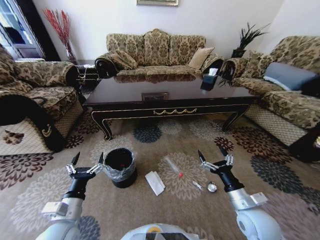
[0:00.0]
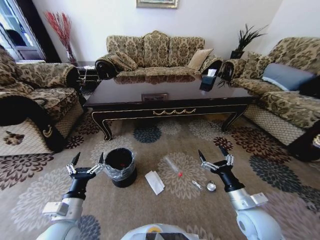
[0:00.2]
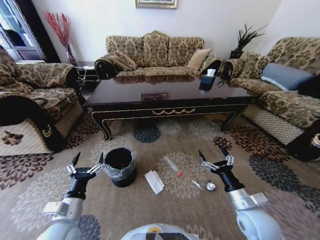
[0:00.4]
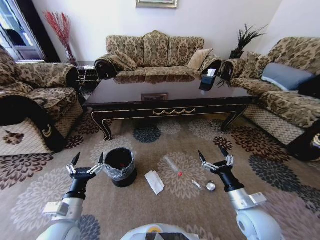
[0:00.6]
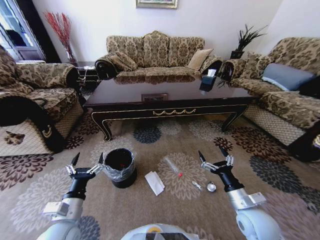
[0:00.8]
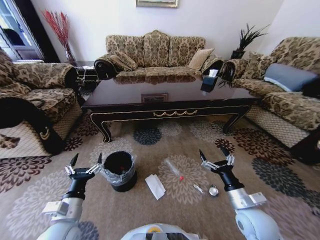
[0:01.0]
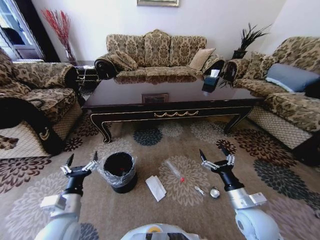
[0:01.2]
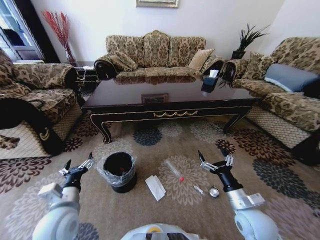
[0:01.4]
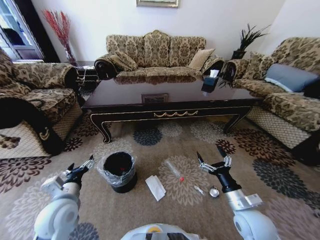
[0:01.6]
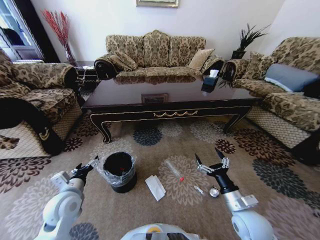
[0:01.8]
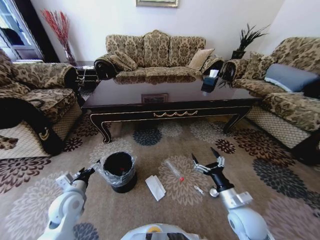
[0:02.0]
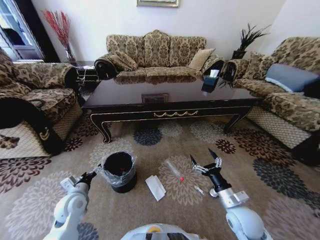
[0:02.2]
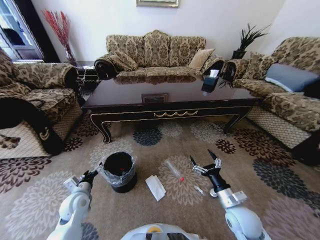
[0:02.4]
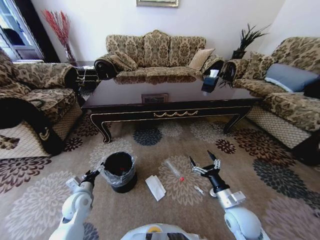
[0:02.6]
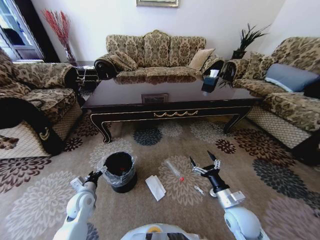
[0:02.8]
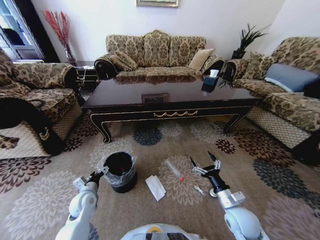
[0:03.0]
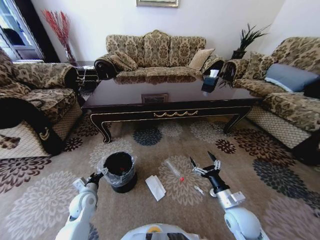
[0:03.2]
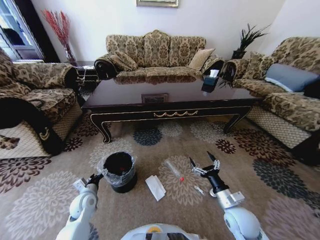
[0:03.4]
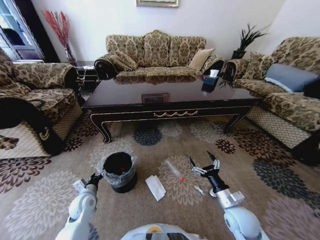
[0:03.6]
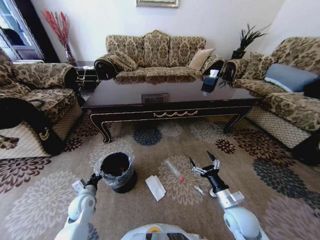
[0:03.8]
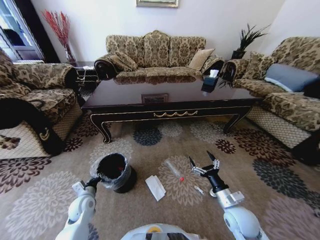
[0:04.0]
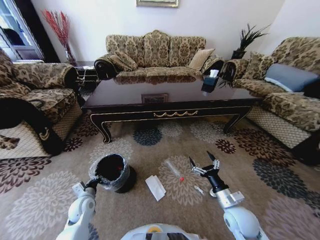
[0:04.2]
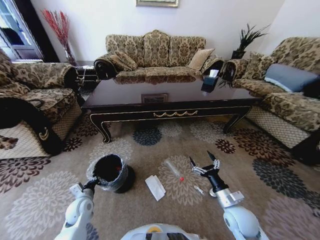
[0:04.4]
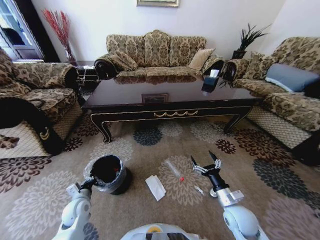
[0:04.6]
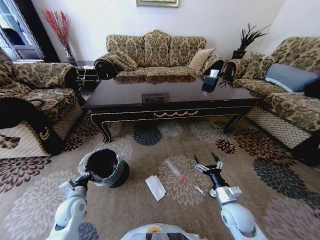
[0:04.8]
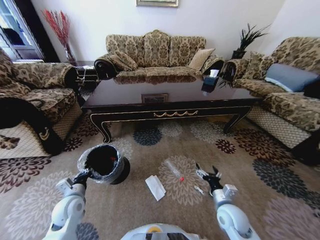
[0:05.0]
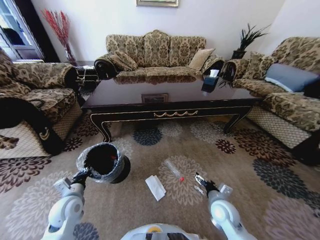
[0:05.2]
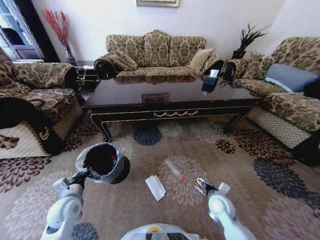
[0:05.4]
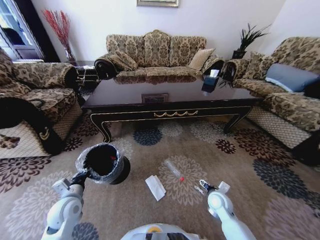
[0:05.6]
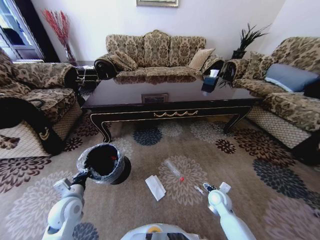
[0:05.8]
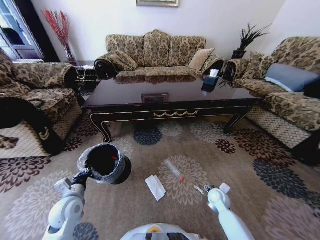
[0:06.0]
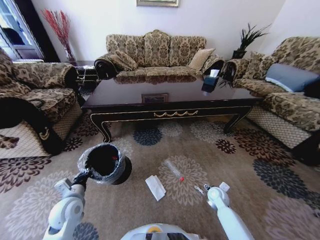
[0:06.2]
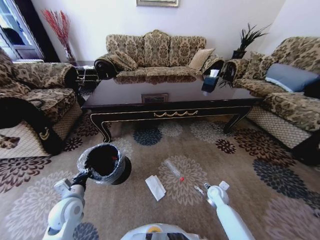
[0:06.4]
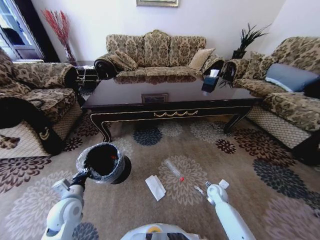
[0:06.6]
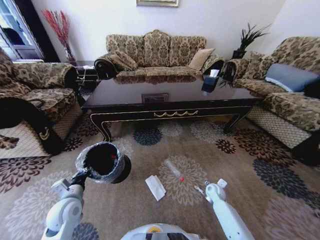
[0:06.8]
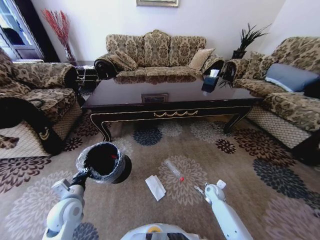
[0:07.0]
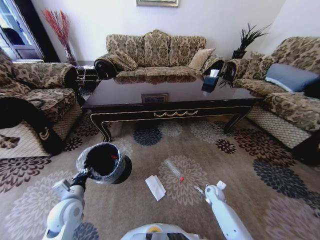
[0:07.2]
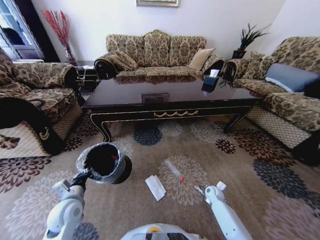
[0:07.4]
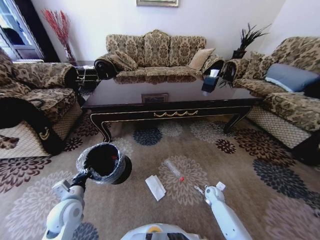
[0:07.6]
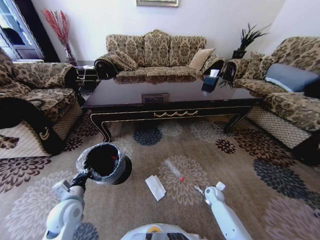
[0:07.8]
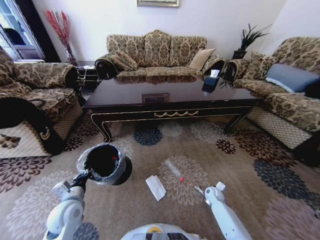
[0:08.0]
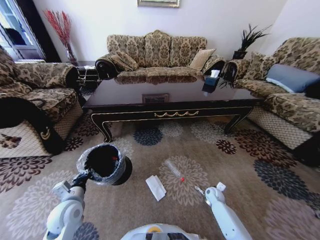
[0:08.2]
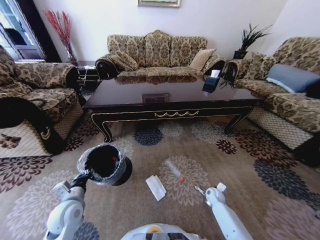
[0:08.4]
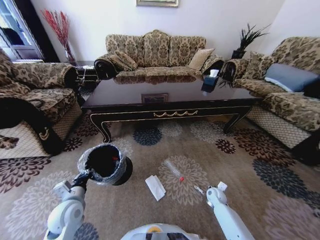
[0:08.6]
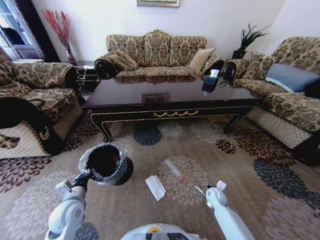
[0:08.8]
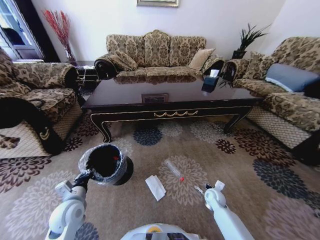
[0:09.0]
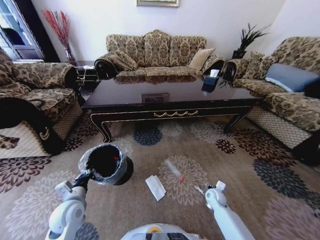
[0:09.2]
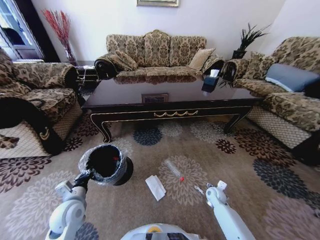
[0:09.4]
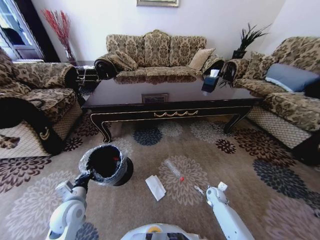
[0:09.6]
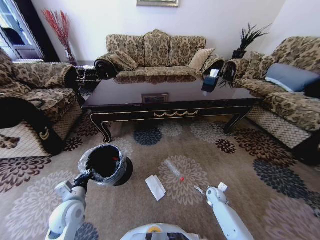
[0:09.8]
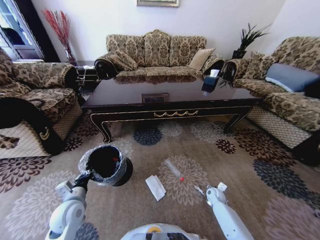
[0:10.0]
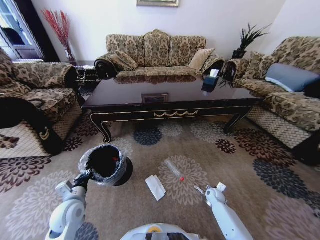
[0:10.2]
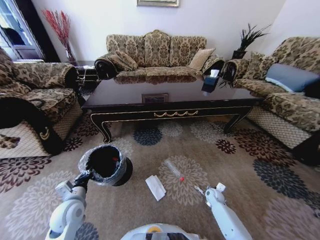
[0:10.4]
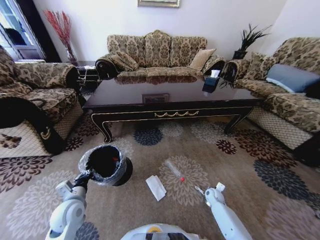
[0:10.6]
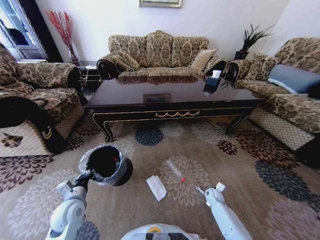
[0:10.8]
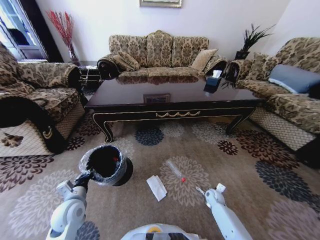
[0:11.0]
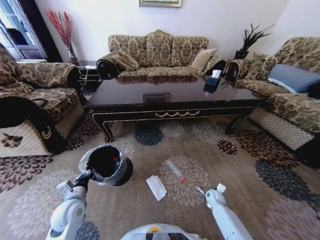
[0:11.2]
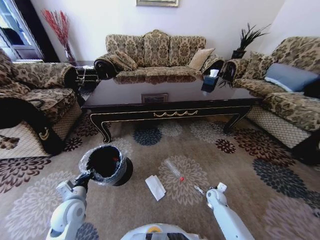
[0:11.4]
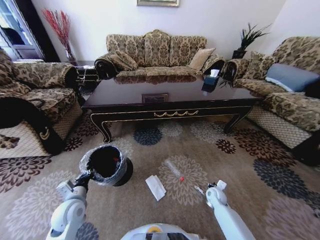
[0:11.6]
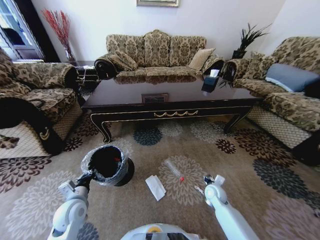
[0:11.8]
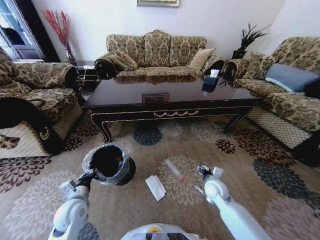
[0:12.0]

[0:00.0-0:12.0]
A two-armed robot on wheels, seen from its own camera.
Task of the whole recording: Move to the front of the table and pick up the trash from the floor, then place it into the trash bin.
0:00.0 to 0:01.6: The left gripper is displaced forward by some 5 cm.
0:01.6 to 0:03.0: The left gripper goes about 15 cm downward and forward.
0:03.0 to 0:04.4: The left gripper closes.
0:04.4 to 0:06.0: The left gripper shifts some 10 cm upward, while the right gripper moves downward and forward, approximately 15 cm.
0:06.0 to 0:07.6: The right gripper goes some 10 cm downward.
0:07.6 to 0:09.0: The right gripper shifts by roughly 5 cm.
0:10.4 to 0:12.0: The right gripper shifts some 20 cm upward and to the left, and closes up.

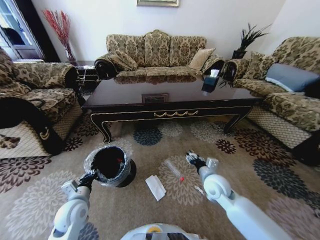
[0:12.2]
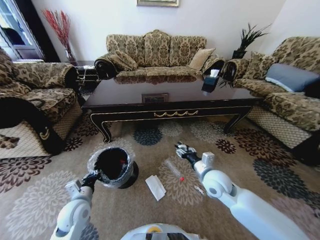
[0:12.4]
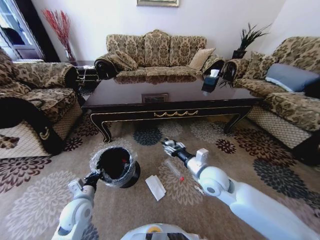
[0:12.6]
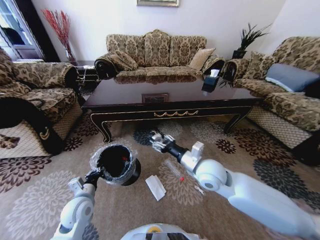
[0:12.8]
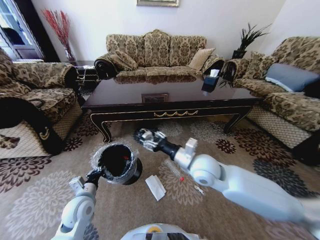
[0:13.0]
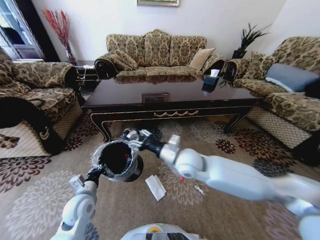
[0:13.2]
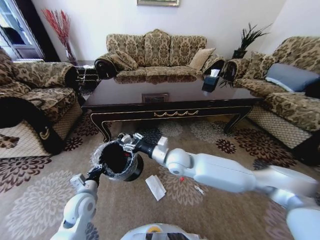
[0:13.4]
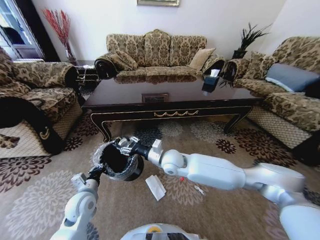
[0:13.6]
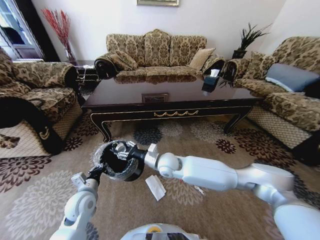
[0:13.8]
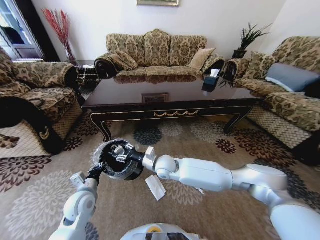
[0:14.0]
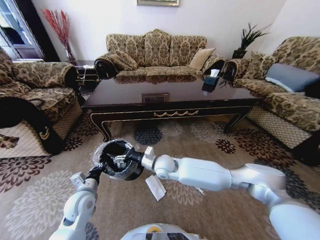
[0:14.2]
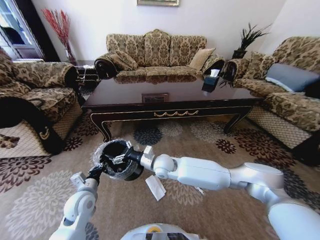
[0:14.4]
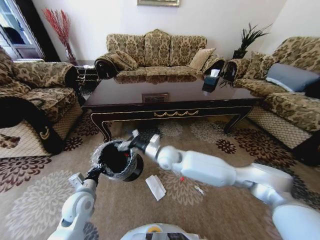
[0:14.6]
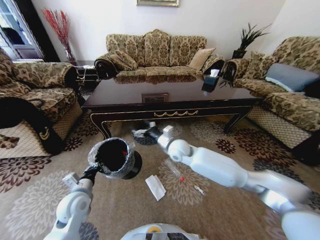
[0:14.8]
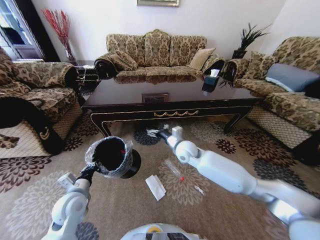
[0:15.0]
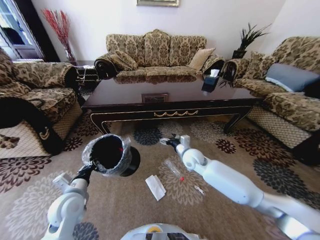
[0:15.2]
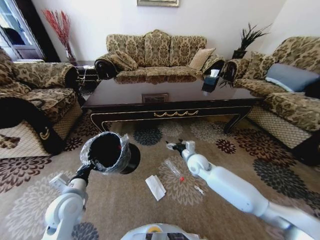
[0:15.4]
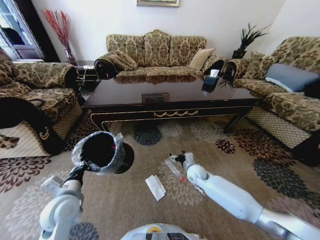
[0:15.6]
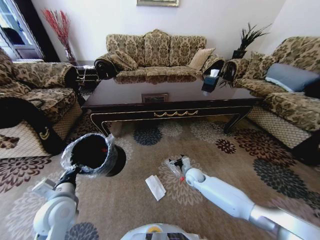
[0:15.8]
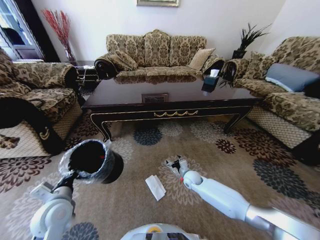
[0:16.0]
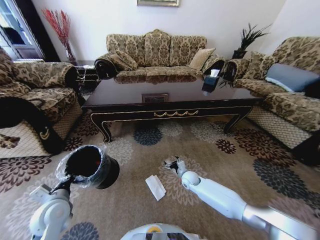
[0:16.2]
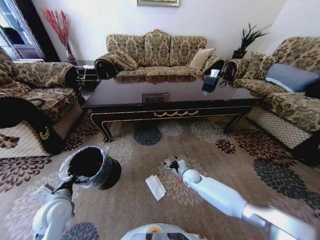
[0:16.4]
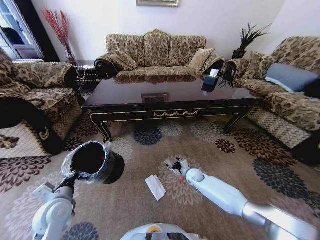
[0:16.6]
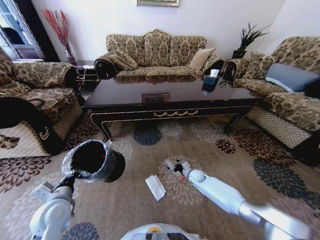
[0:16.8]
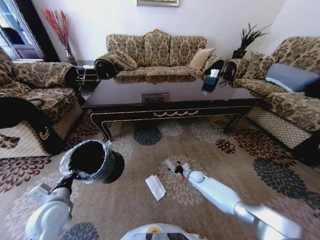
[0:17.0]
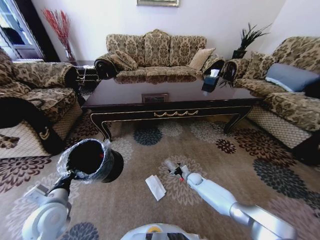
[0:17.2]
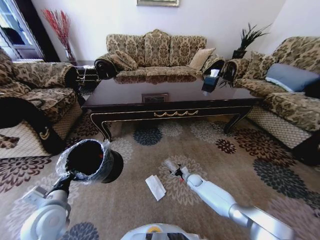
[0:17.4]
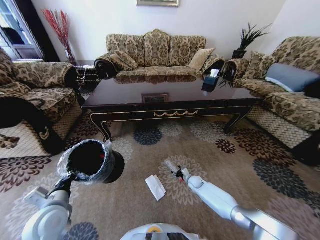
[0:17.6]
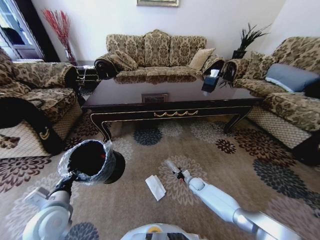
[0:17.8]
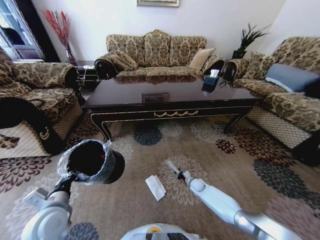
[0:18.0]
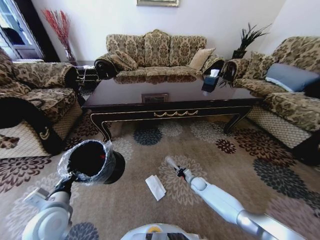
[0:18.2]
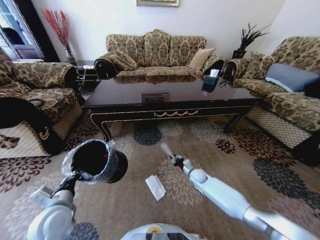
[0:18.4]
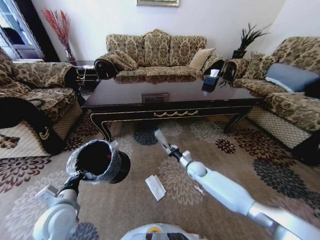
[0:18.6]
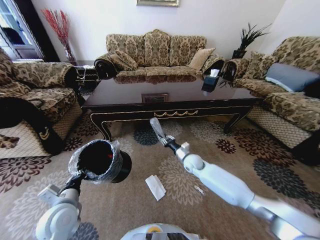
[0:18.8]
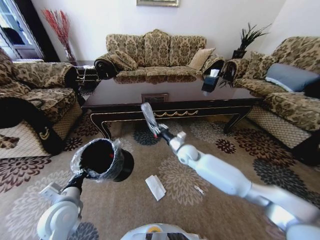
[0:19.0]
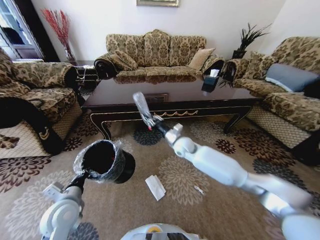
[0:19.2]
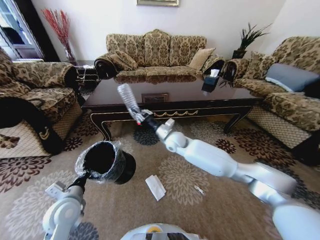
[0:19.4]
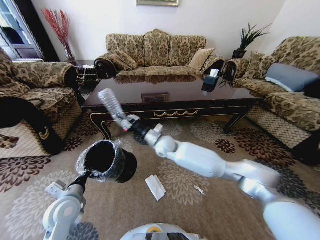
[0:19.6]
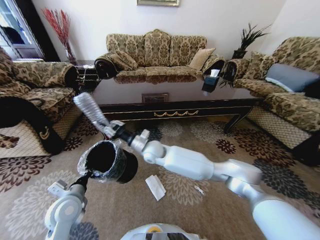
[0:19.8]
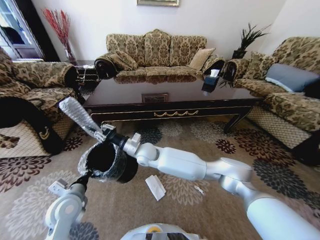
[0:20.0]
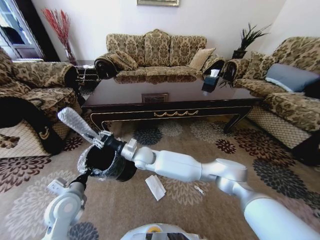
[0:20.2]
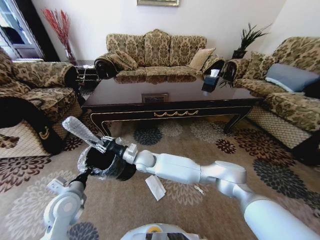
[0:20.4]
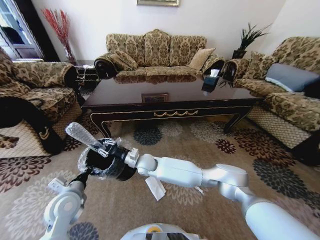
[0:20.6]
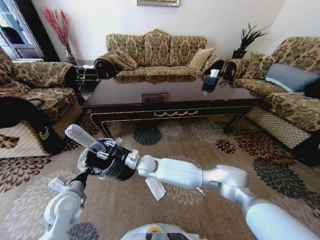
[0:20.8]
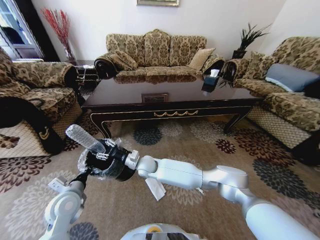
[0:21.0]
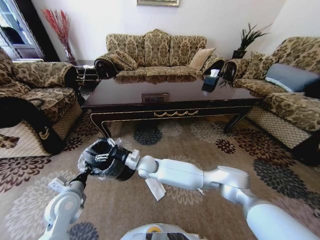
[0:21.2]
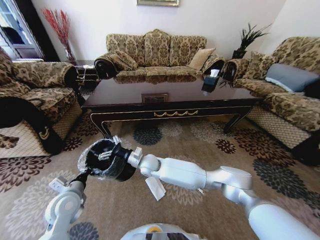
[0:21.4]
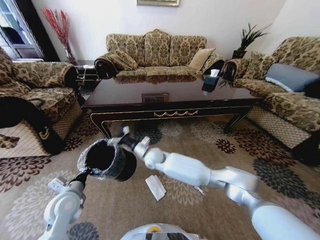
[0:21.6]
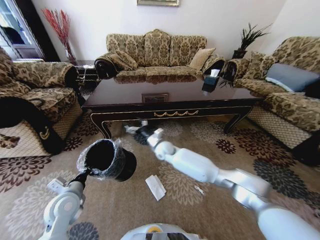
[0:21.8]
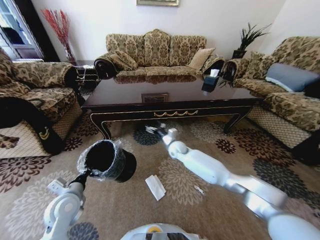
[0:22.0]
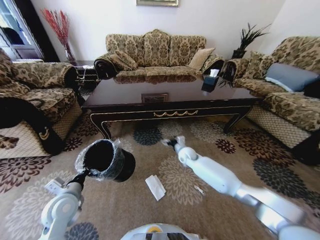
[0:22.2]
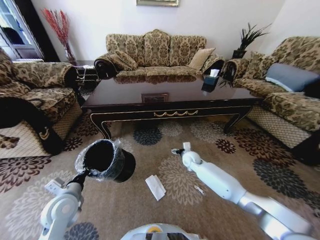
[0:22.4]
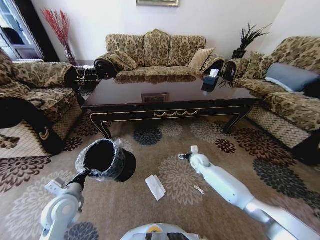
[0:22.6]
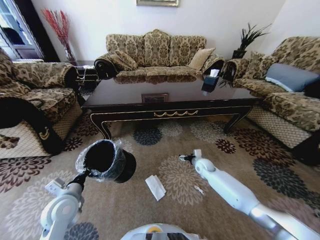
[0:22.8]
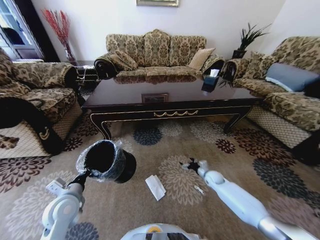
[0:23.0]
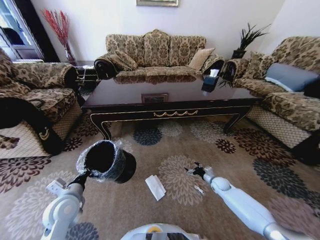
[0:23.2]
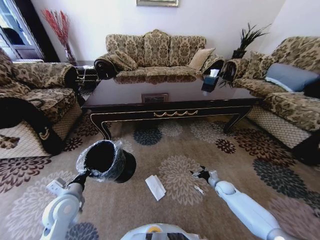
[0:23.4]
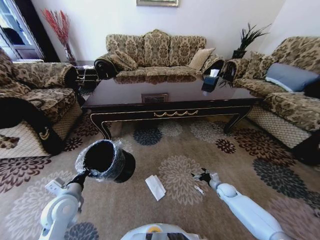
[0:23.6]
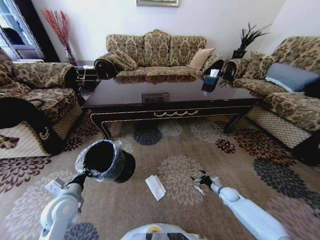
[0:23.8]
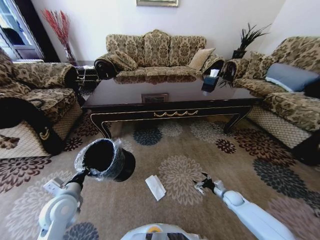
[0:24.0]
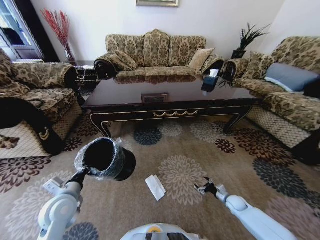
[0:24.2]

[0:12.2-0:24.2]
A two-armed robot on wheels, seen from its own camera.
Task of the whole recording: Move to the front of the table and pick up the trash from the floor, then place it into the trash bin.
0:12.2 to 0:13.8: The right gripper is displaced to the left by some 20 cm.
0:13.8 to 0:15.2: The right gripper heads to the right, covering some 15 cm, and opens its fingers.
0:15.2 to 0:16.6: The right gripper moves downward, roughly 20 cm.
0:16.6 to 0:18.2: The right gripper shifts roughly 5 cm downward, and closes its fingers.
0:18.2 to 0:19.8: The right gripper is displaced upward and to the left by some 40 cm.
0:19.8 to 0:21.2: The right gripper heads downward, covering approximately 10 cm, and opens its fingers.
0:21.2 to 0:22.6: The right gripper shifts roughly 30 cm to the right.
0:22.6 to 0:24.2: The right gripper is displaced to the right, backward and downward by roughly 30 cm.
